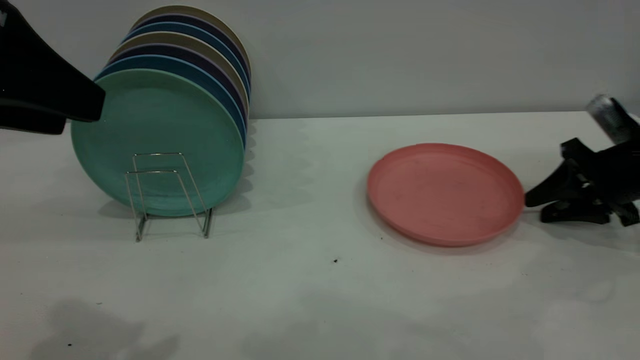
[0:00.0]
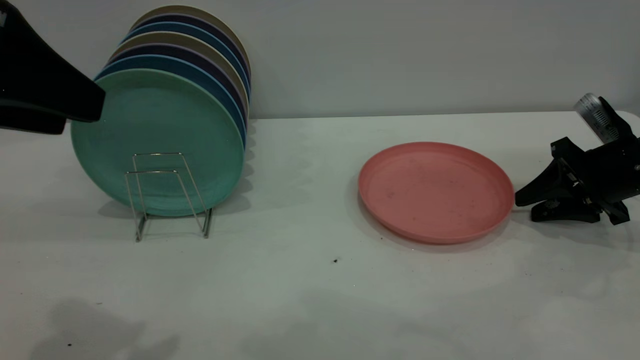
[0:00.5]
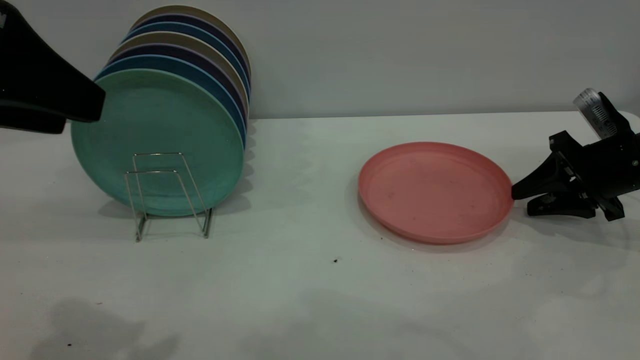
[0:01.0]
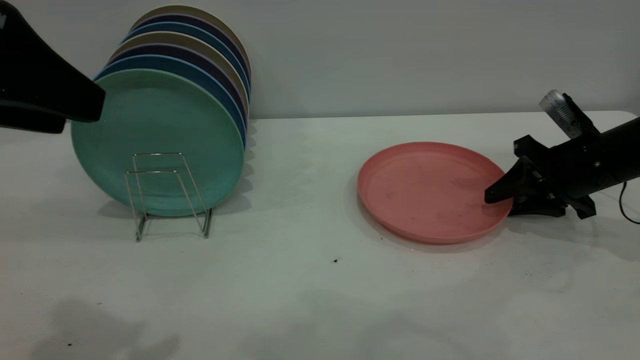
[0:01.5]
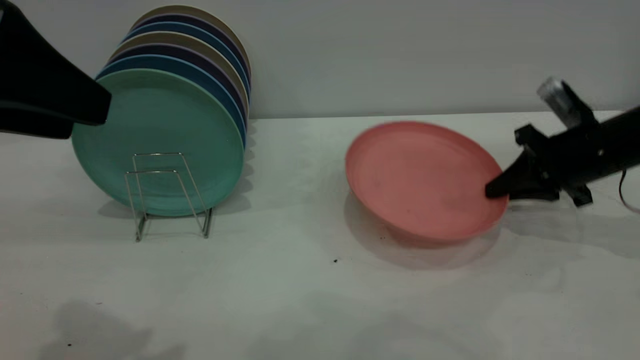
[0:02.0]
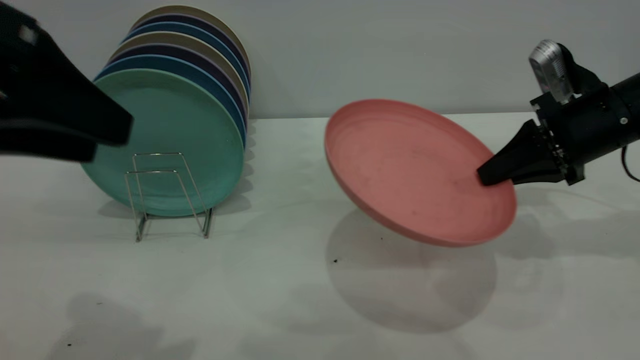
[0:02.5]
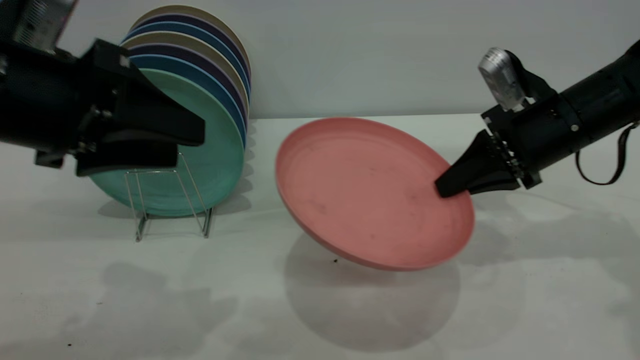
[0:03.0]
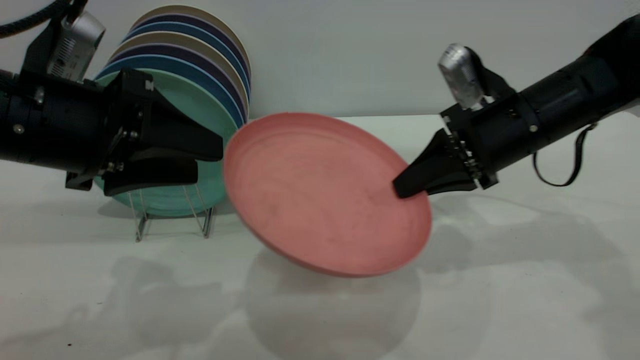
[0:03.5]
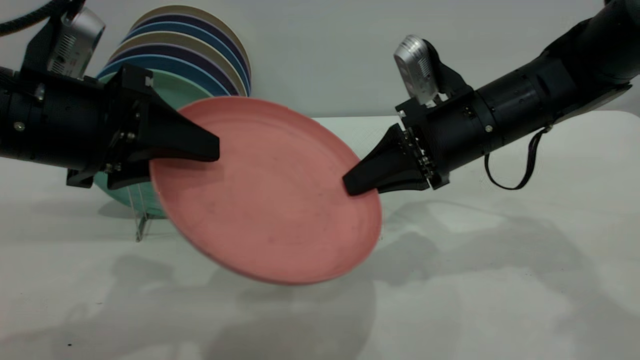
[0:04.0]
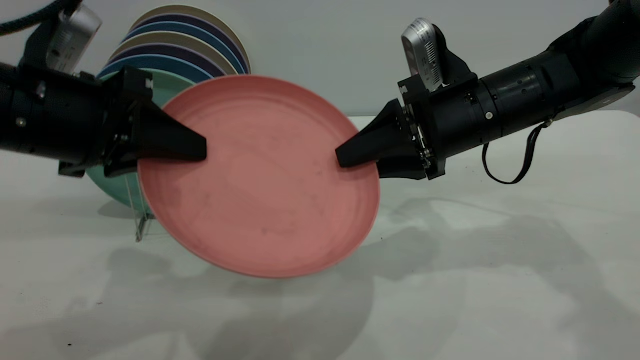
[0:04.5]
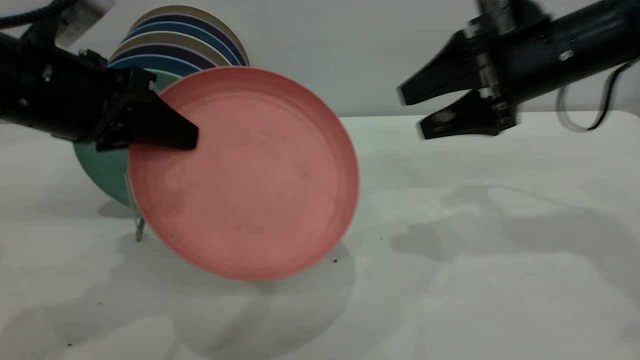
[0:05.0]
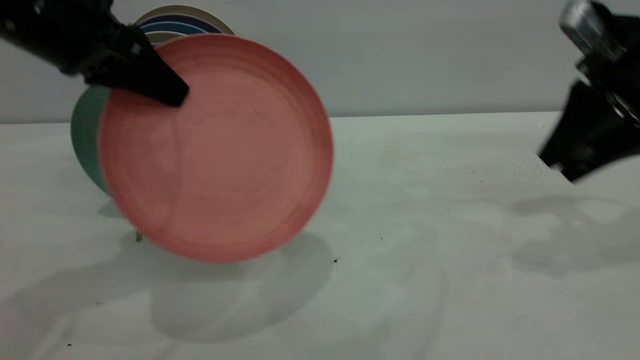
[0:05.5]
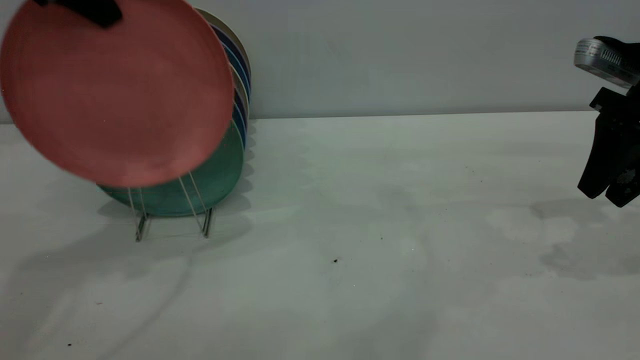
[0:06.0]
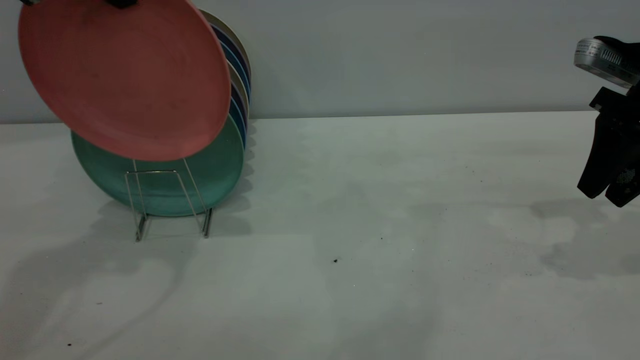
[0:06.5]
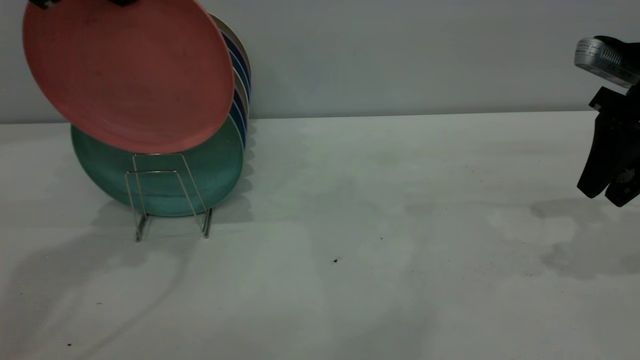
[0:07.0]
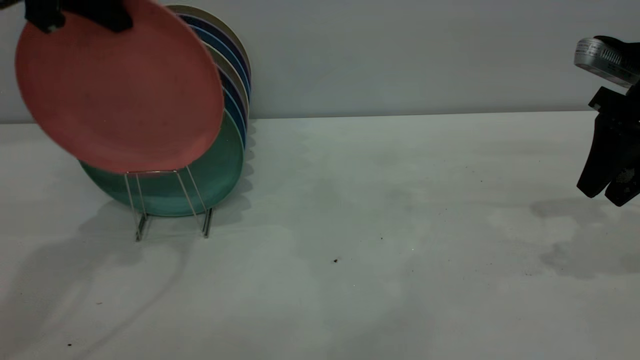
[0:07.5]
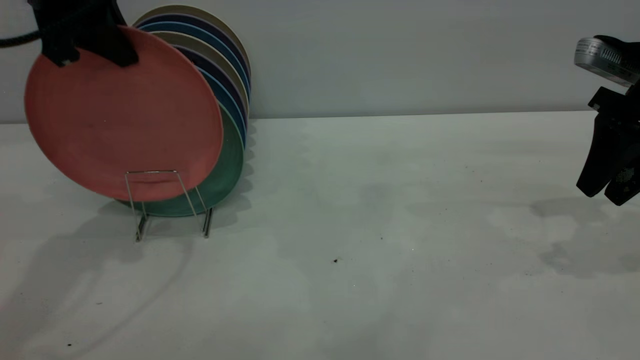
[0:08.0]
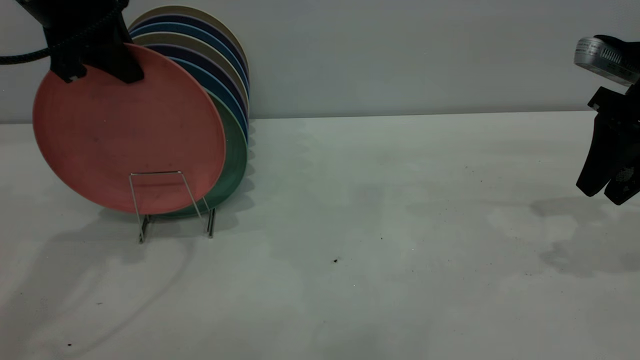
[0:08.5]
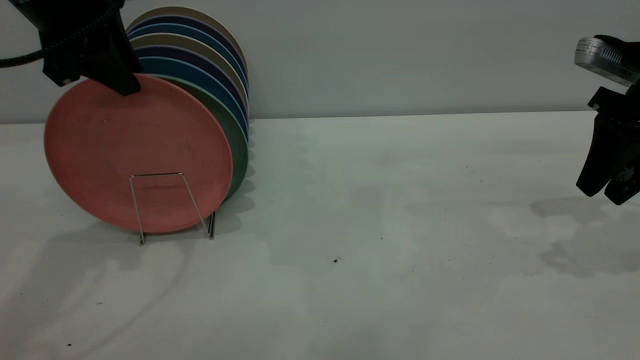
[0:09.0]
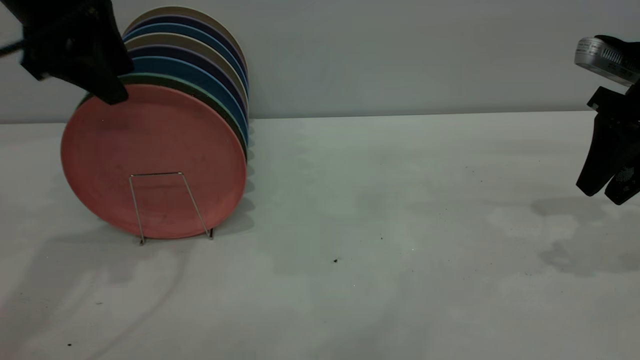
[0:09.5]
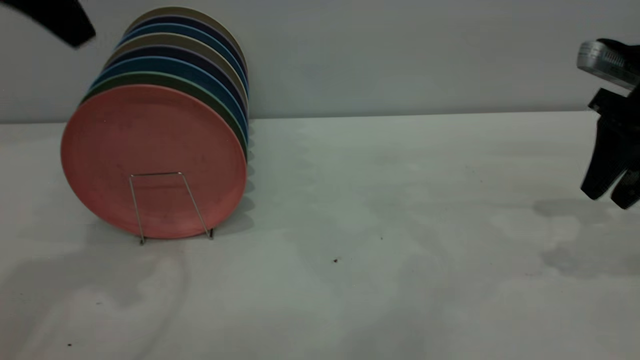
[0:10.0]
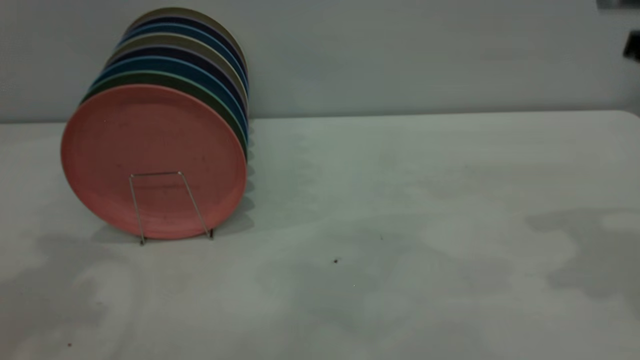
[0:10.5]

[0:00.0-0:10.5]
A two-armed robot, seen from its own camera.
Task of the whole recording: the right gripper grasp the pink plate, the right gripper pass the pink plate to the left gripper, and the left gripper place the pink plate on the plate rack.
Step, 0:00.0 to 0:02.0: Pick up the plate with the right gripper.
Step, 0:02.5 to 0:04.5: Pass the plate from the right gripper to the left gripper.
Step, 0:05.0 to 0:09.5: Place the plate on the shelf.
0:00.0 to 0:02.0: The right gripper is displaced to the left by some 5 cm, and closes its fingers.
0:02.0 to 0:04.0: The left gripper shifts roughly 10 cm downward and forward, and closes its fingers, while the right gripper is displaced to the left by roughly 15 cm.
0:04.0 to 0:06.5: The left gripper shifts roughly 20 cm upward and forward, and closes. Meanwhile the right gripper heads to the right, covering about 20 cm, and opens its fingers.
0:06.5 to 0:08.5: The left gripper travels downward by about 5 cm.
0:08.5 to 0:10.5: The left gripper travels upward and backward by approximately 20 cm, and opens; the right gripper is displaced upward by about 10 cm.
